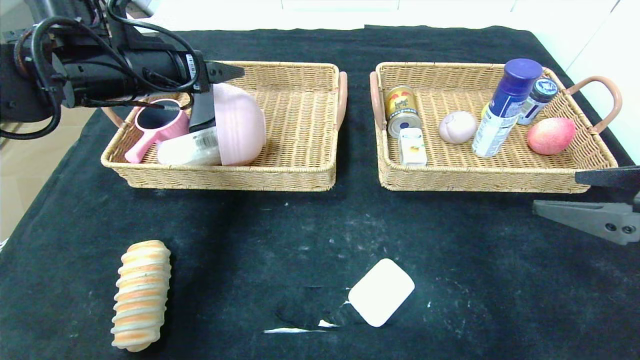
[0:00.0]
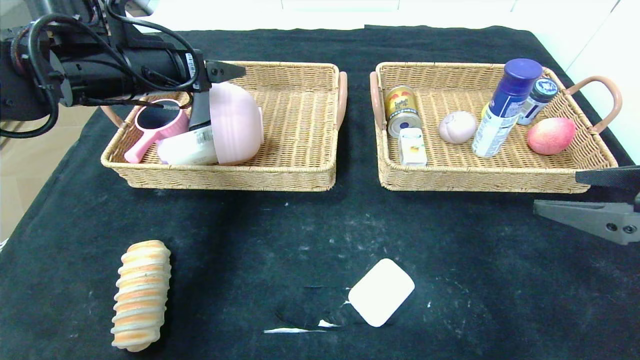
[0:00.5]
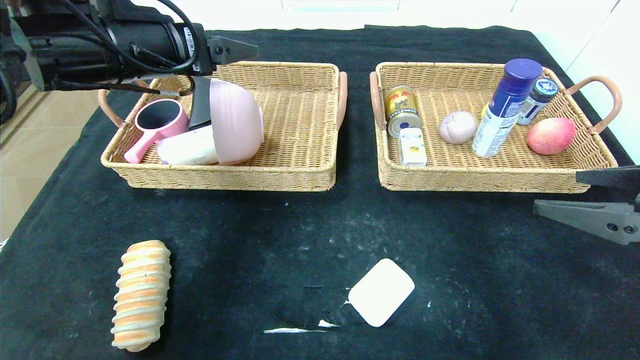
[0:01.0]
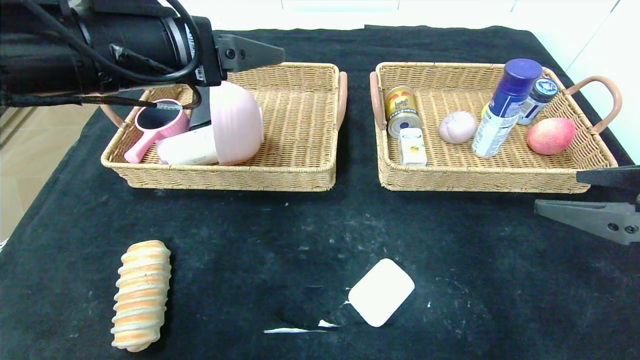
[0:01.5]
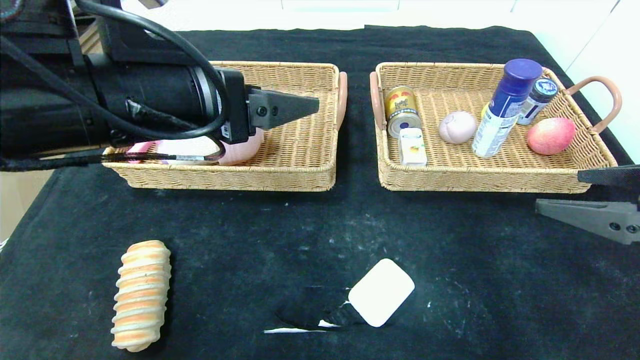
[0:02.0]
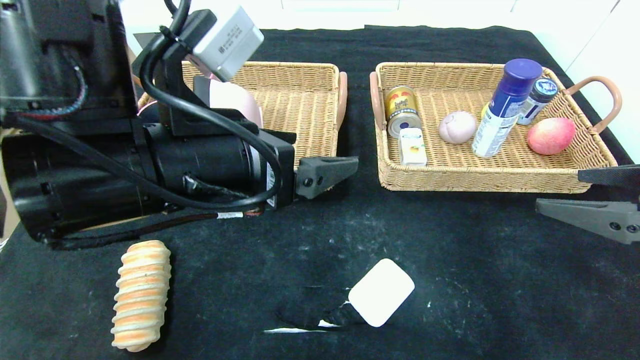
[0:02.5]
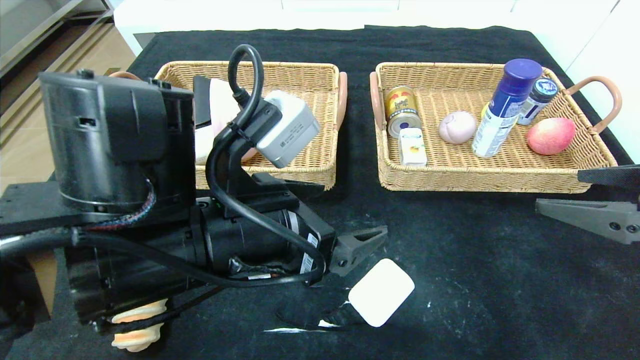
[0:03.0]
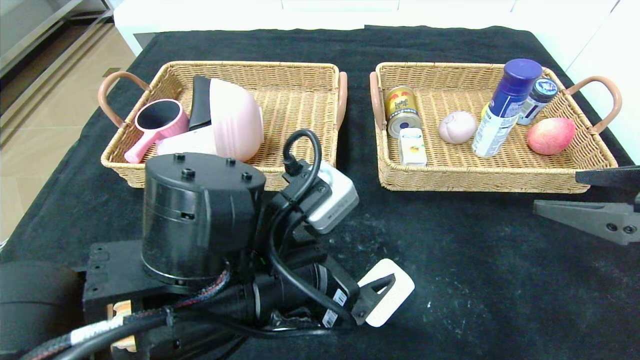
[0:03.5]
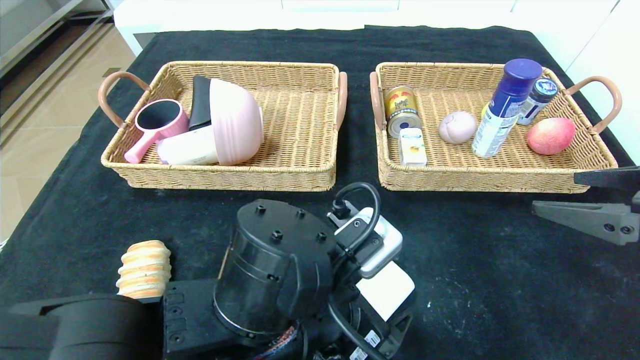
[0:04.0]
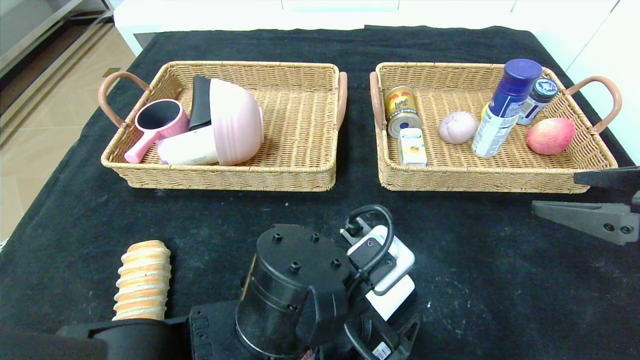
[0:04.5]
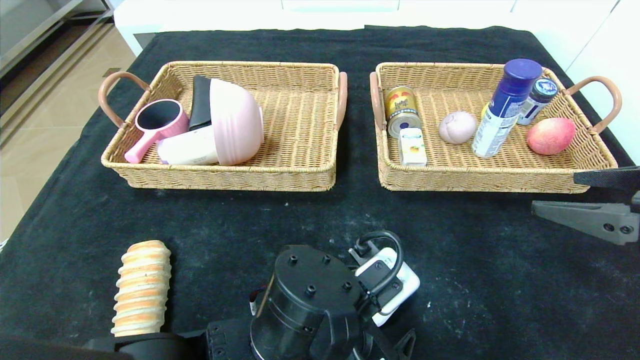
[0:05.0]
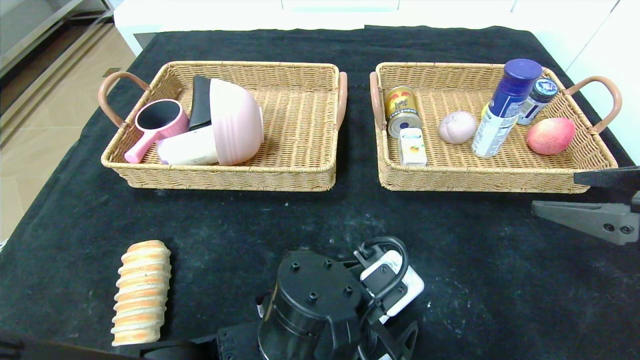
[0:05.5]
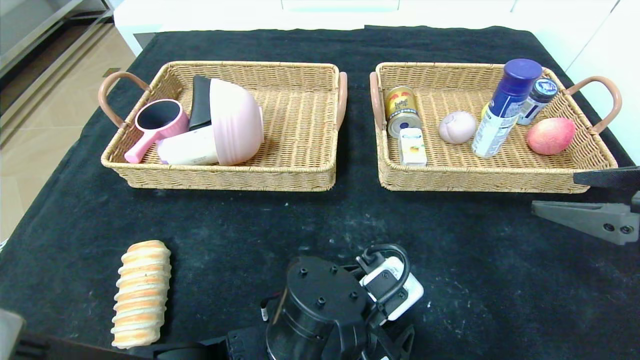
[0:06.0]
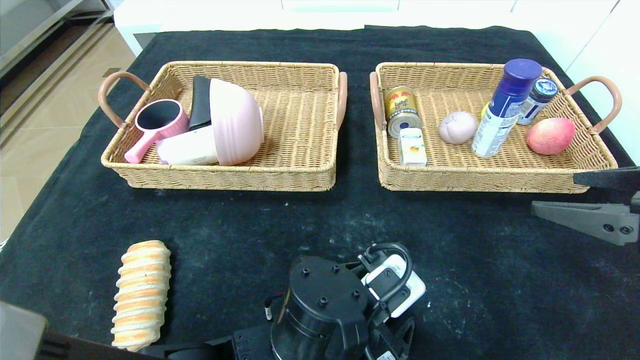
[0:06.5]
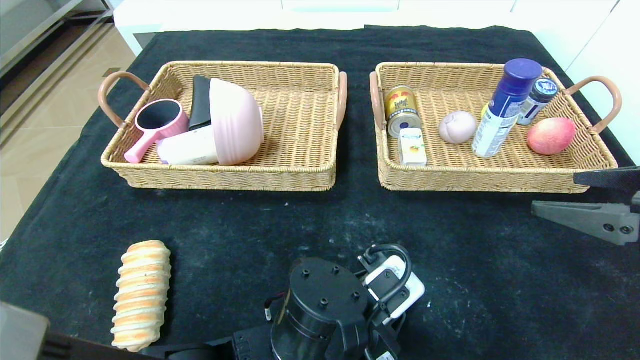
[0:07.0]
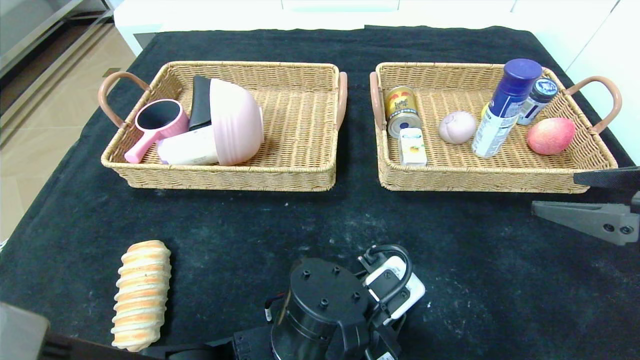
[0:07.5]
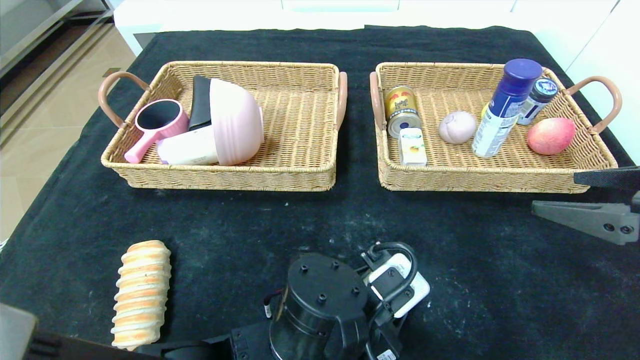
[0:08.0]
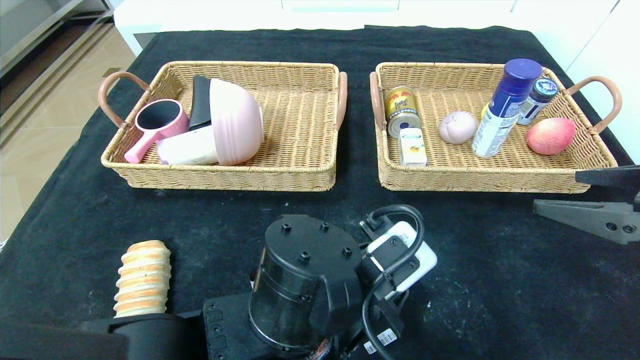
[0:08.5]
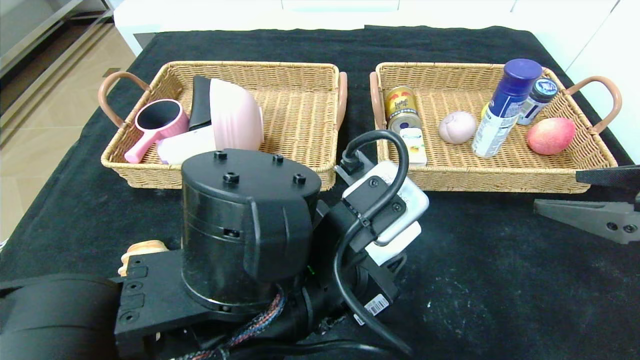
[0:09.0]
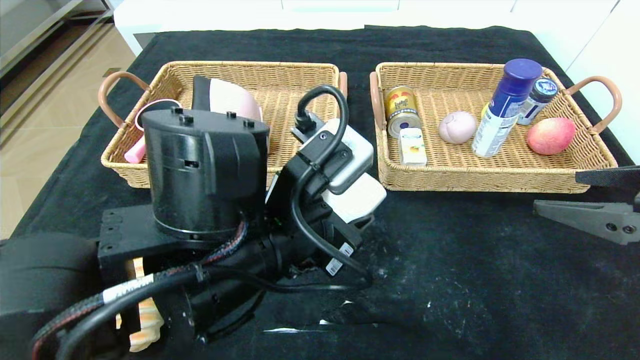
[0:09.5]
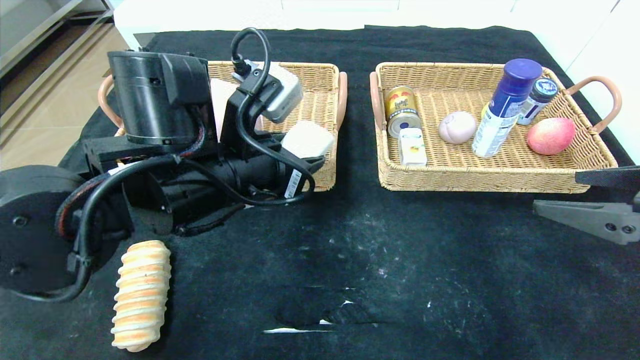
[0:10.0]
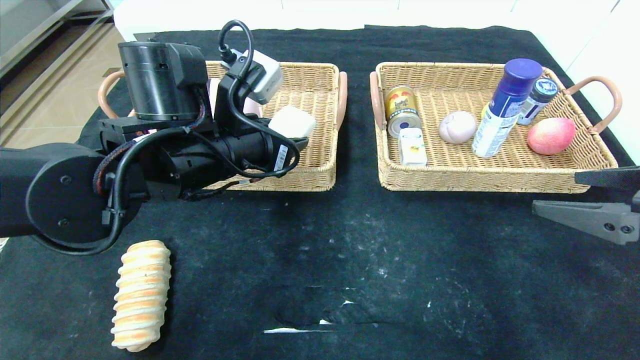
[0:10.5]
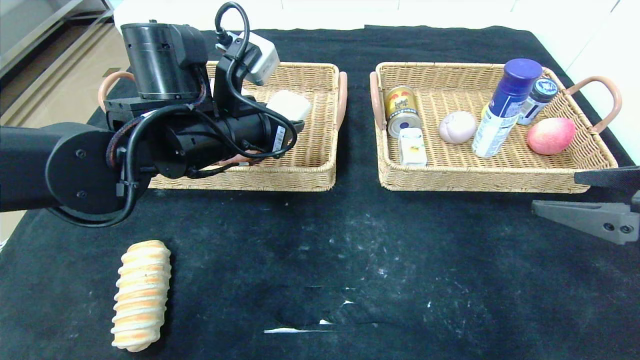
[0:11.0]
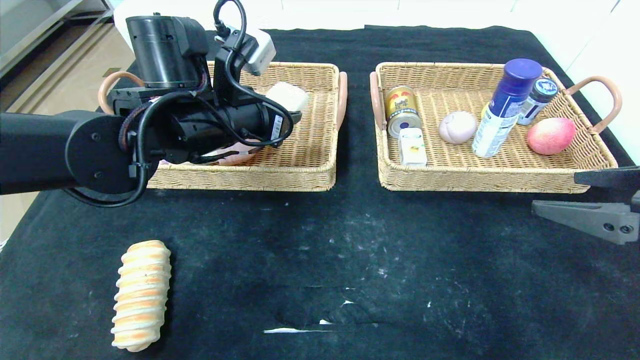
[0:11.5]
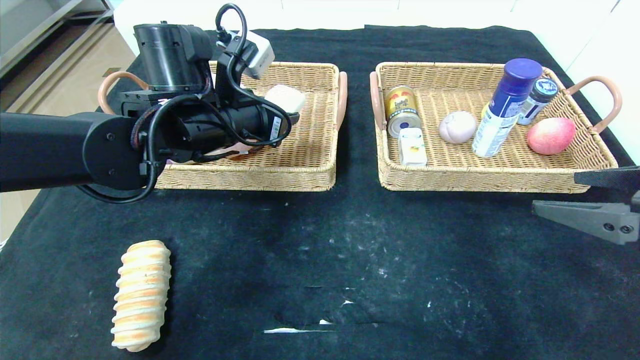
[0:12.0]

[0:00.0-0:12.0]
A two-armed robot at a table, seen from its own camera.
0:00.0 to 0:02.0: The left gripper heads backward and to the right, covering some 15 cm.
0:02.0 to 0:04.0: The left gripper travels downward and to the right by roughly 20 cm.
0:04.0 to 0:06.0: The left gripper shifts about 5 cm downward.
0:06.0 to 0:08.0: The left gripper closes up.
0:08.0 to 0:10.0: The left gripper shifts roughly 20 cm upward, to the left and forward.
0:10.0 to 0:12.0: The left gripper heads forward, covering some 10 cm.

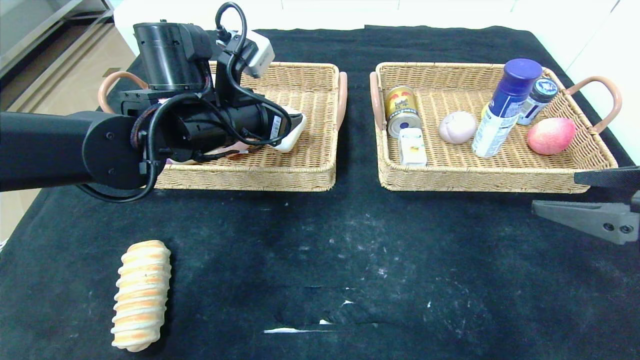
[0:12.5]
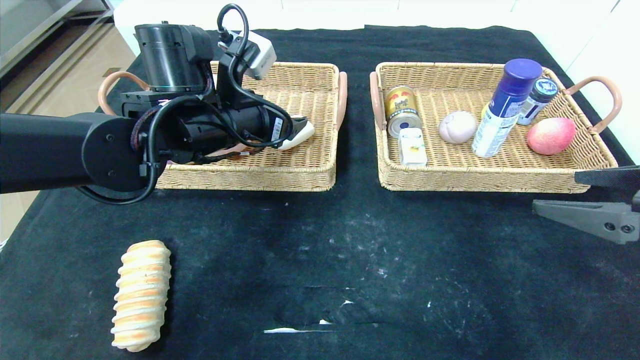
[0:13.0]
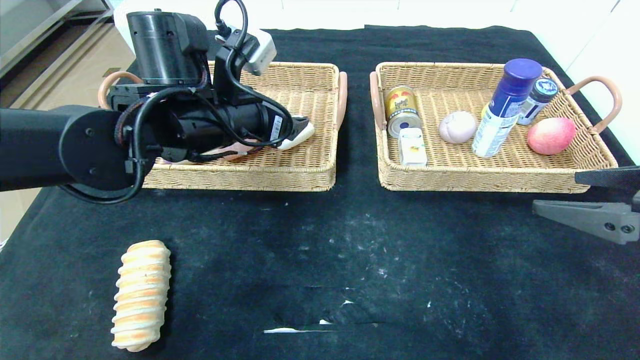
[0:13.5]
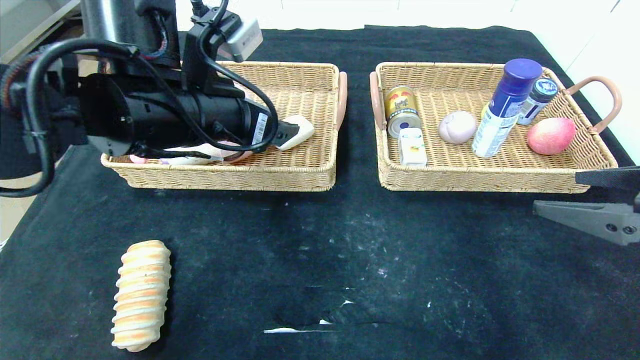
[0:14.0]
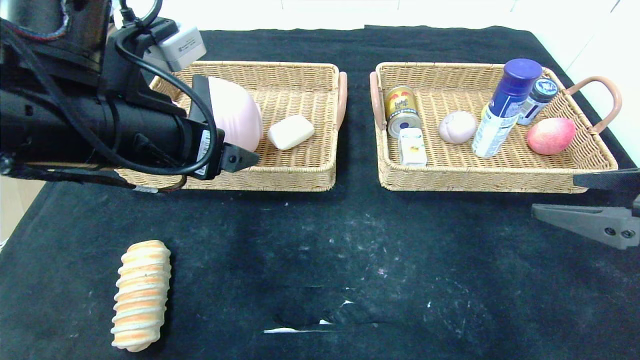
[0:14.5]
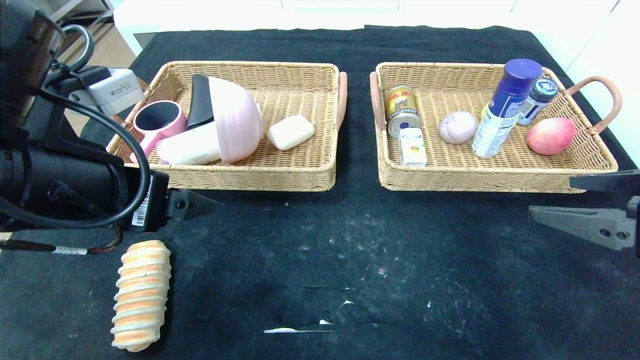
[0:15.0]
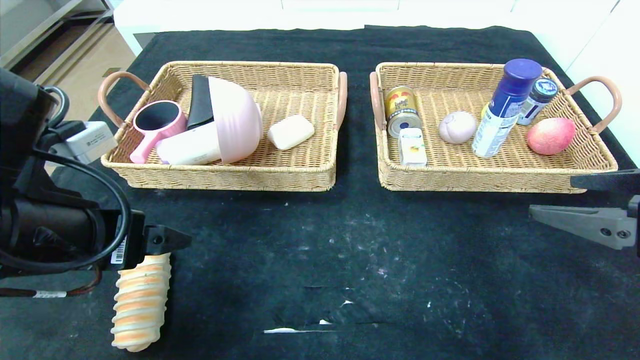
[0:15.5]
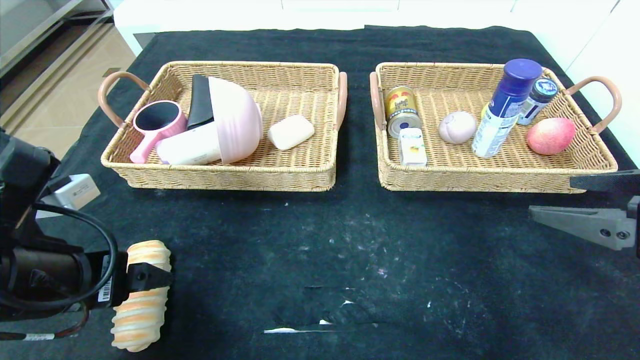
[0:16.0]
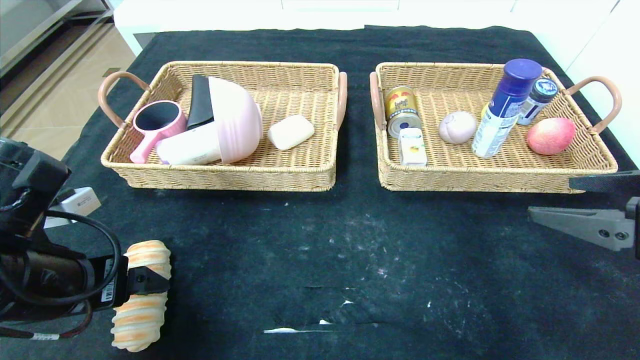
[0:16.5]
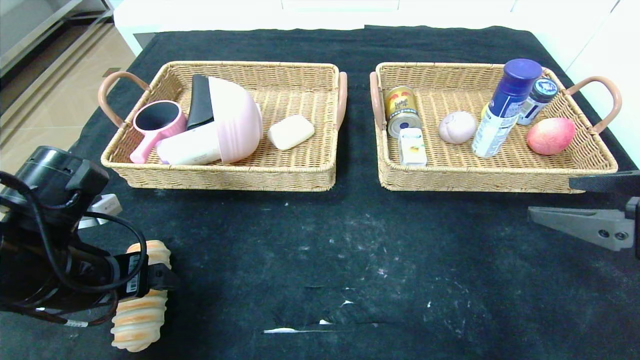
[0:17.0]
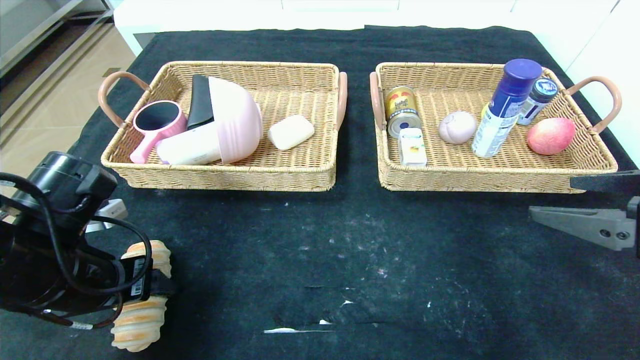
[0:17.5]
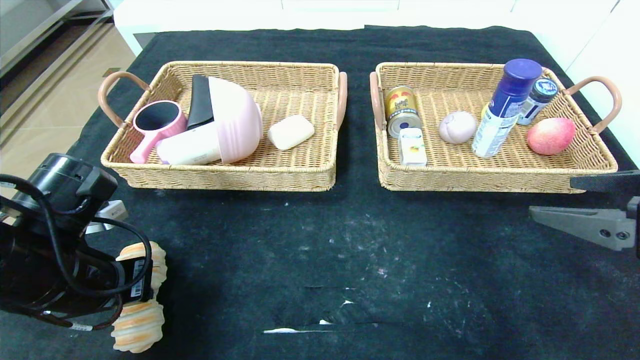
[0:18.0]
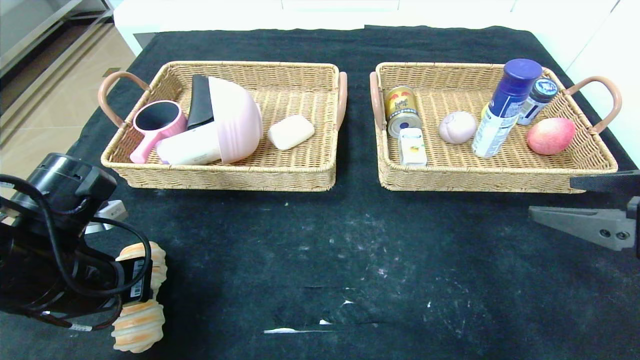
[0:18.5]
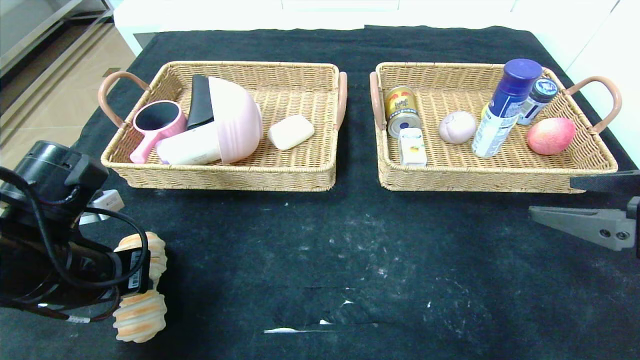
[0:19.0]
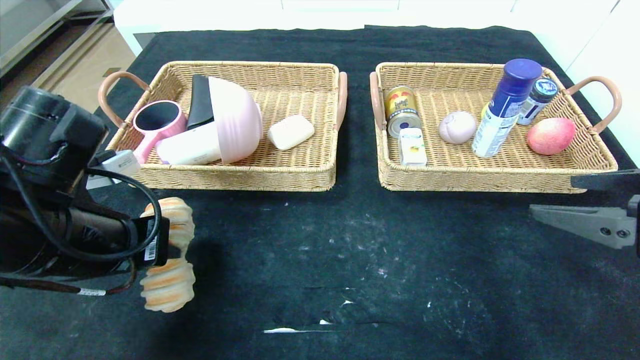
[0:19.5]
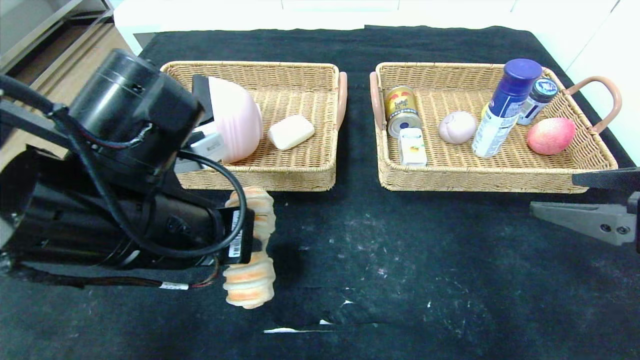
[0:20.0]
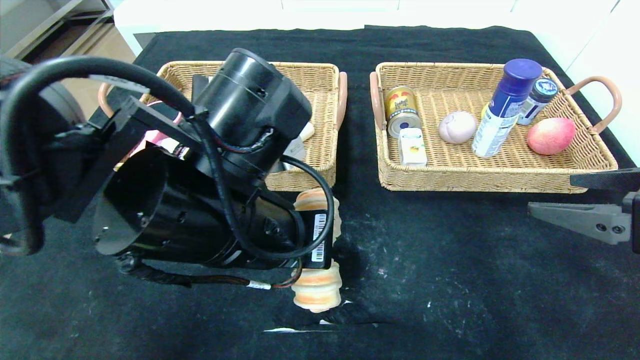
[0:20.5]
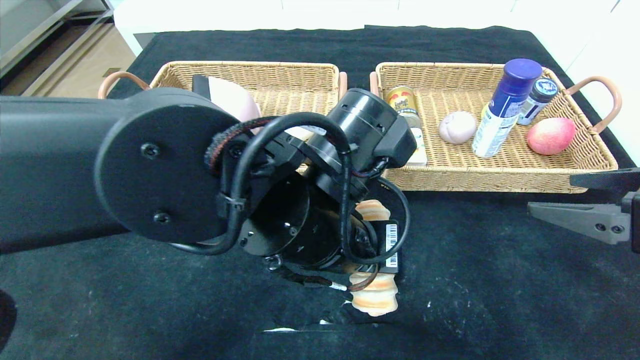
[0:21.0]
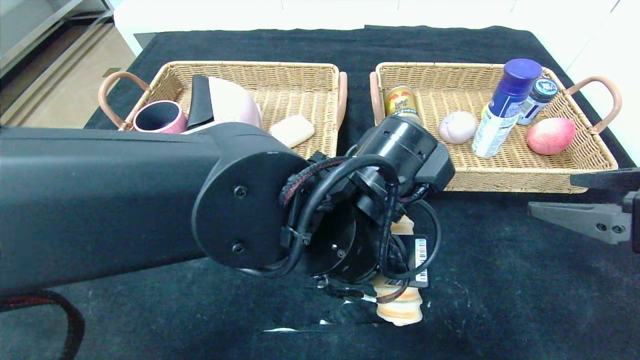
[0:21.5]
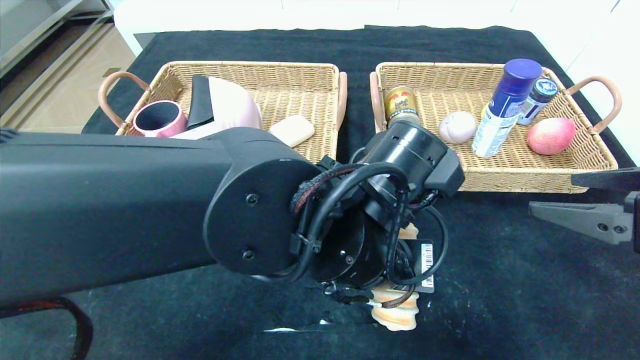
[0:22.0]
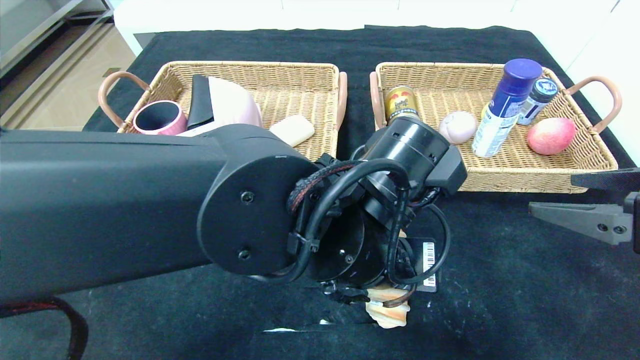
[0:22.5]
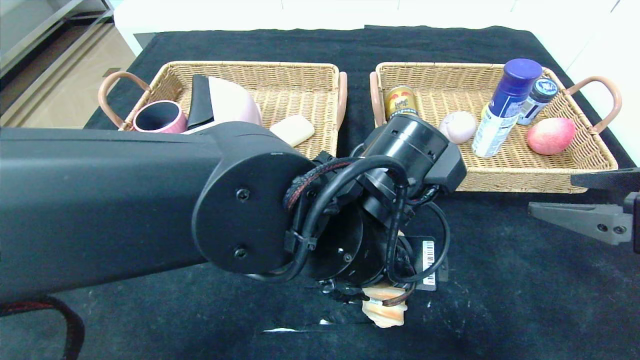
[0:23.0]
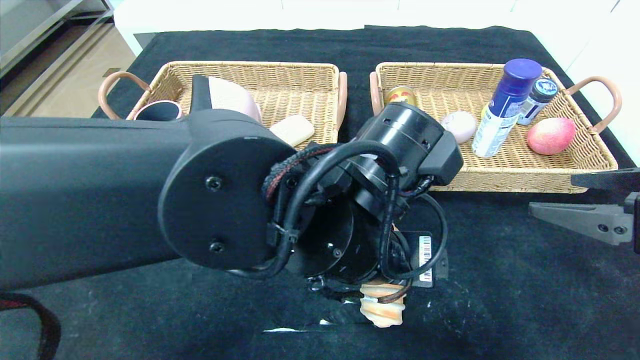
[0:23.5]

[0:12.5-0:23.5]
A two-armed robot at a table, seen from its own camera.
0:12.5 to 0:14.5: The left gripper travels backward by some 10 cm.
0:14.5 to 0:16.0: The left gripper travels downward, to the left and backward by some 15 cm.
0:16.0 to 0:18.0: The left gripper ends up roughly 5 cm from where it was, and closes.
0:18.0 to 0:20.0: The left gripper moves to the right and upward, about 15 cm.
0:20.0 to 0:21.5: The left gripper moves to the right, about 15 cm.
0:21.5 to 0:23.5: The left gripper opens up.